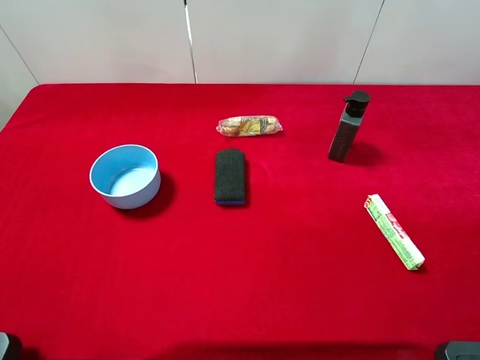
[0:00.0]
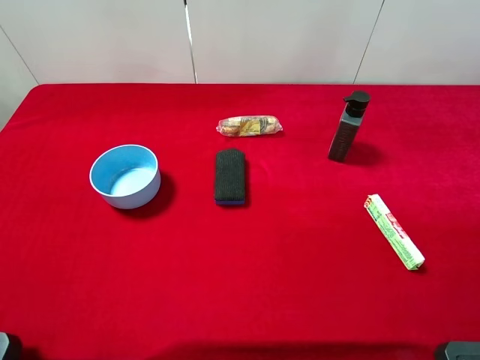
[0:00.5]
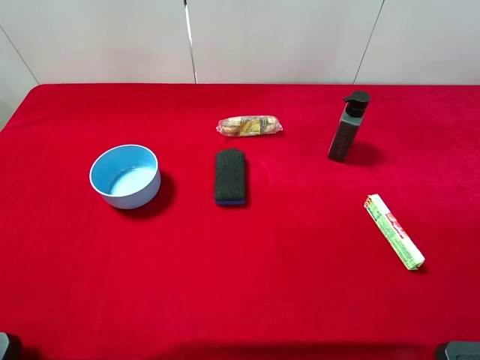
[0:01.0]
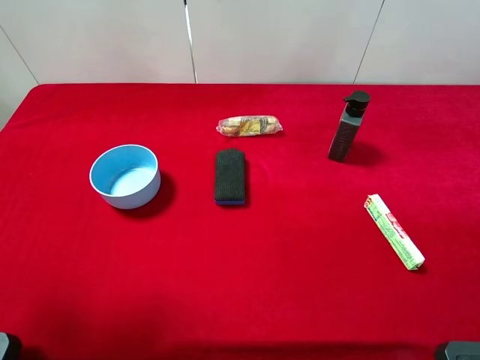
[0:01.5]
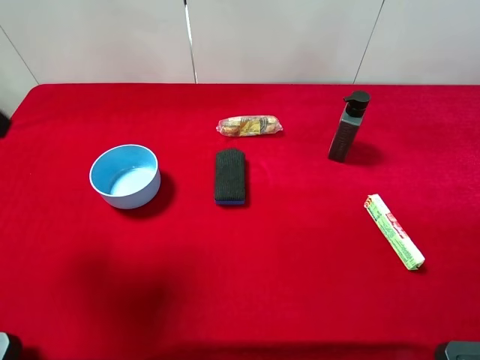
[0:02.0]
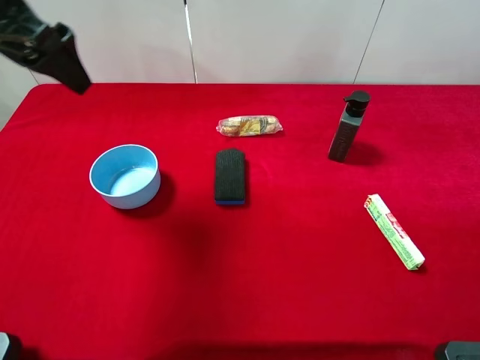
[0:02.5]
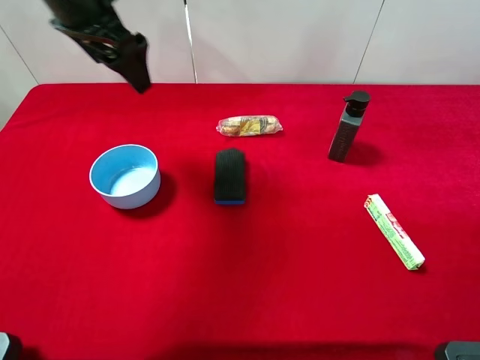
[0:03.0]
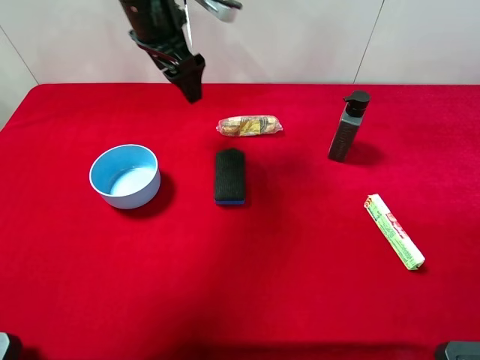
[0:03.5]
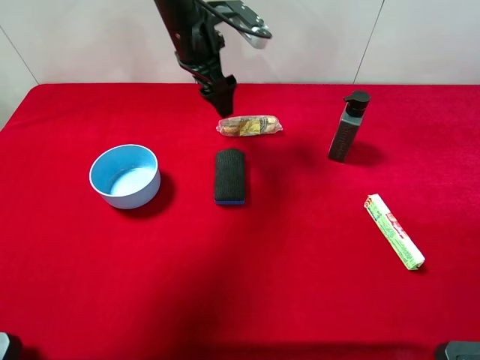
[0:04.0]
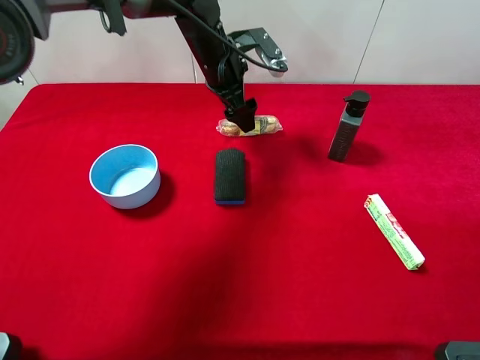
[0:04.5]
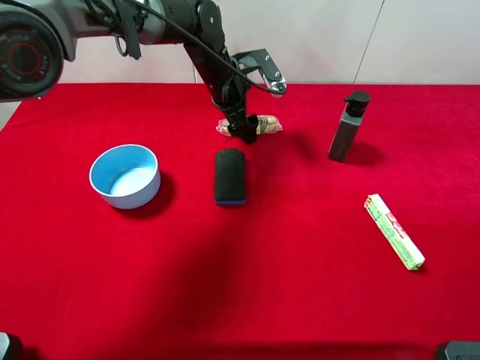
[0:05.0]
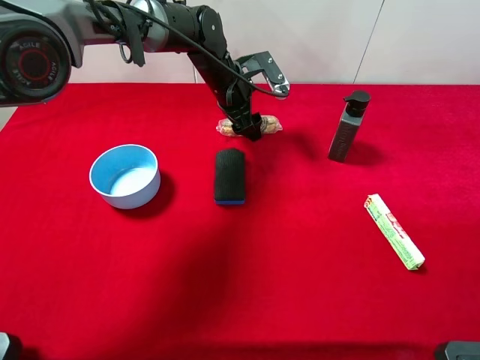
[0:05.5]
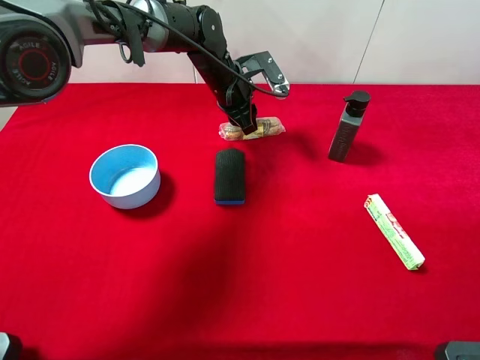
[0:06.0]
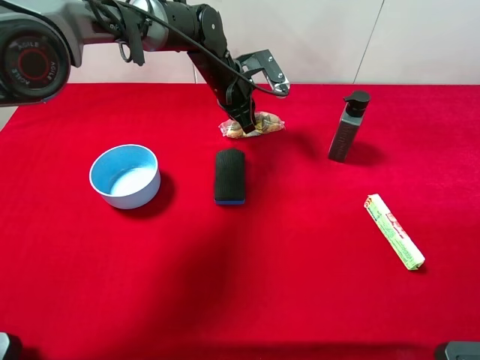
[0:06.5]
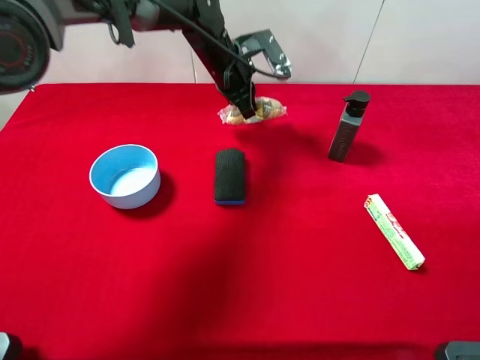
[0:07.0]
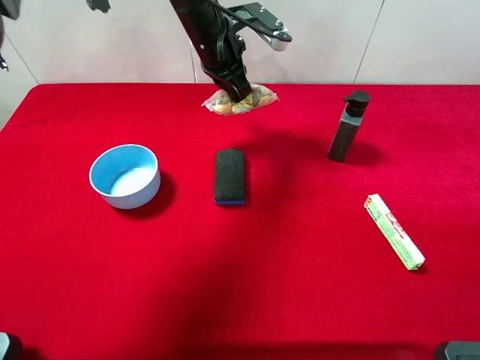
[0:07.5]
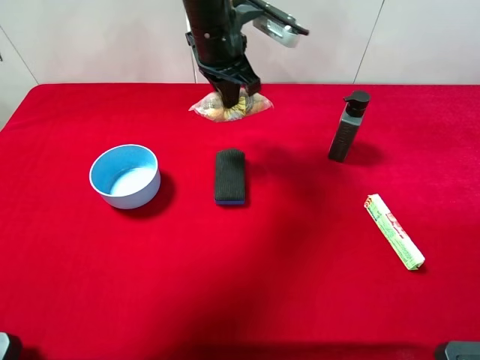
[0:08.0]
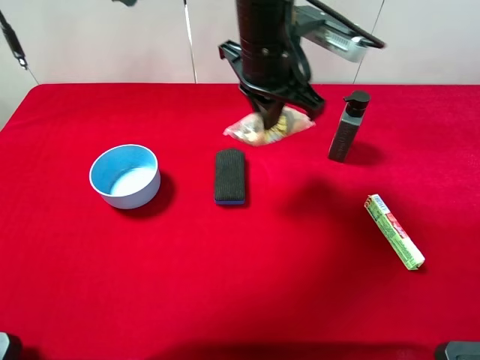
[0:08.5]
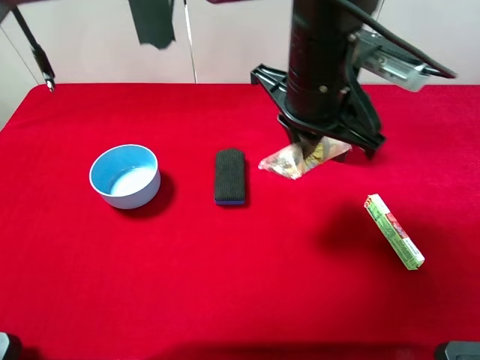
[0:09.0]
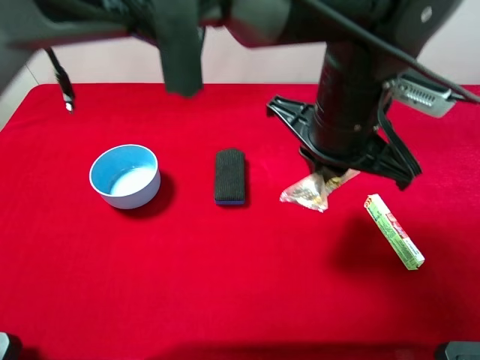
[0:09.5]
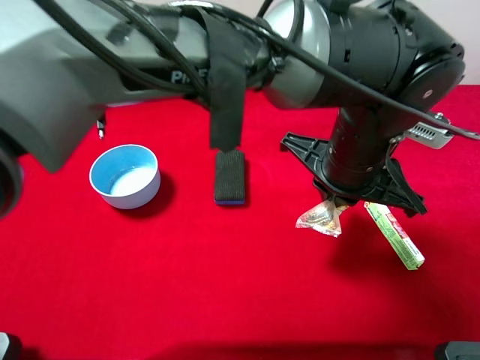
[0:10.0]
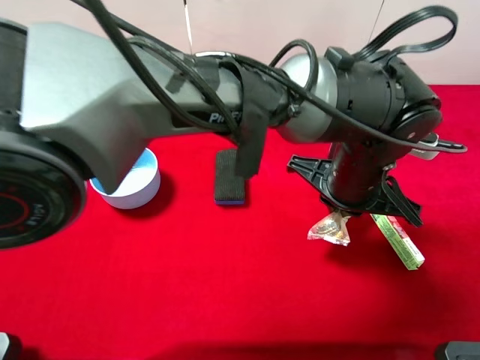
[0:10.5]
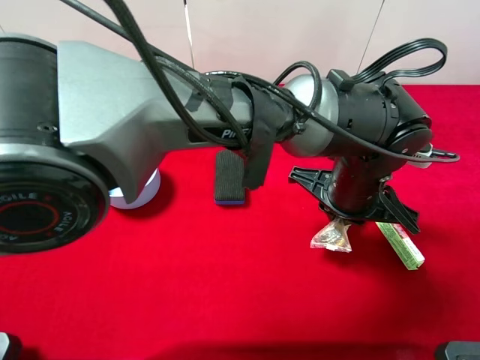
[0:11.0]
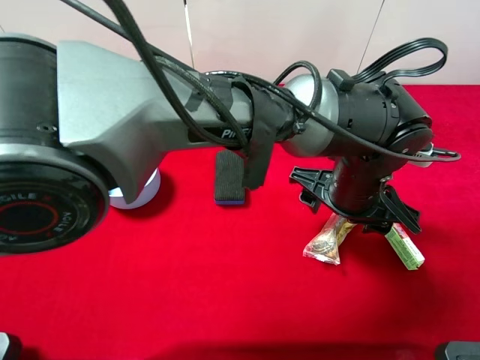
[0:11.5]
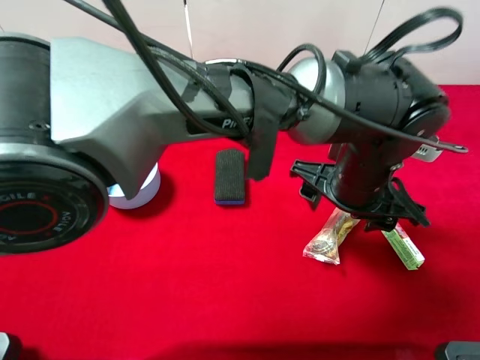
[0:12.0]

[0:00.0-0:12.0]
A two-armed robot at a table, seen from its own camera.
Task of the whole recording: the gripper move the object.
Step, 0:00.0 to 0:06.0: Grasp the chocolate with the left gripper.
0:00.0 to 0:02.0: The left gripper travels forward by about 20 cm.
0:02.0 to 0:04.0: The left gripper is displaced forward, to the right and downward by roughly 35 cm.
0:04.0 to 0:06.0: The left gripper heads downward, covering approximately 10 cm, and closes its fingers.
0:06.0 to 0:08.0: The left gripper goes approximately 15 cm upward and backward.
0:08.0 to 0:10.0: The left gripper travels backward and to the right by some 25 cm.
0:10.0 to 0:12.0: The left gripper opens its fingers.

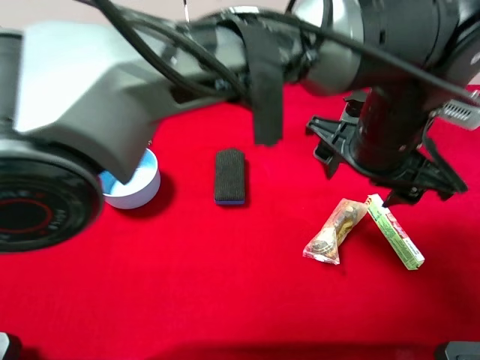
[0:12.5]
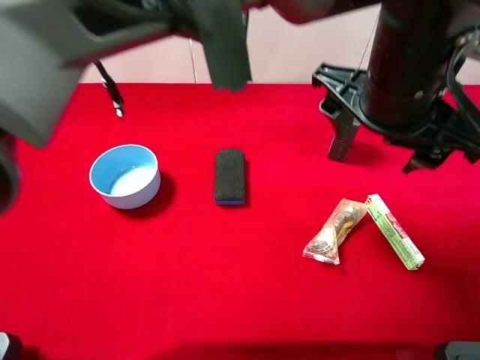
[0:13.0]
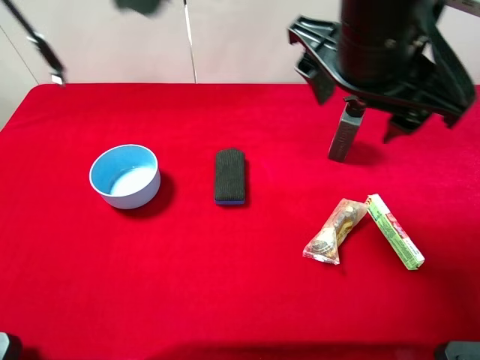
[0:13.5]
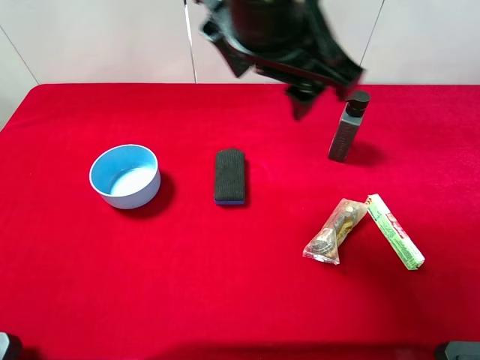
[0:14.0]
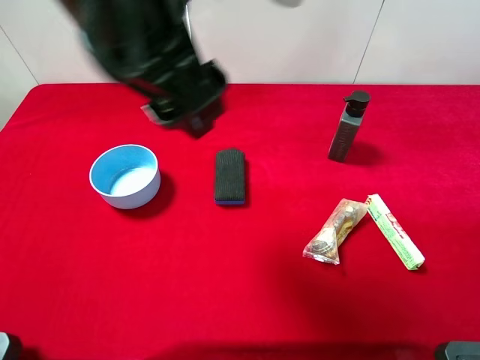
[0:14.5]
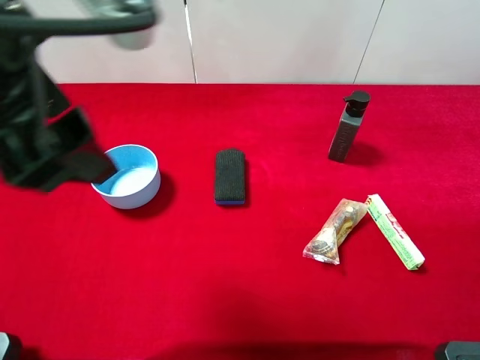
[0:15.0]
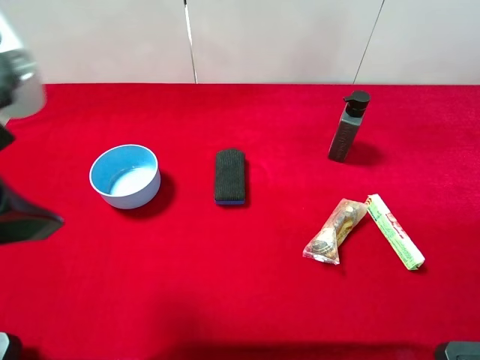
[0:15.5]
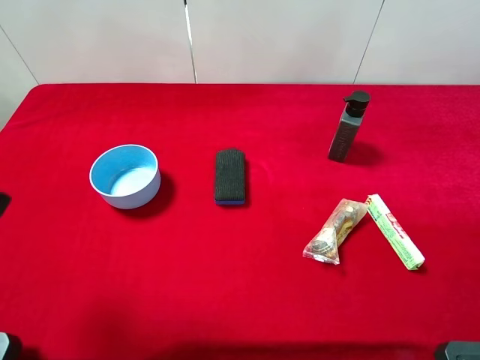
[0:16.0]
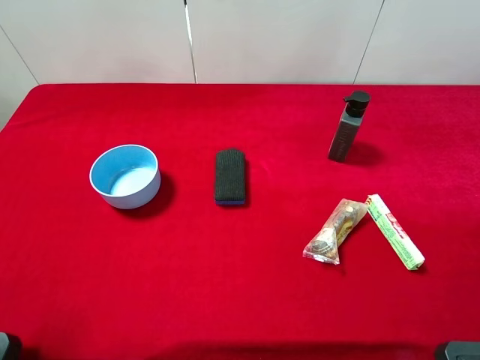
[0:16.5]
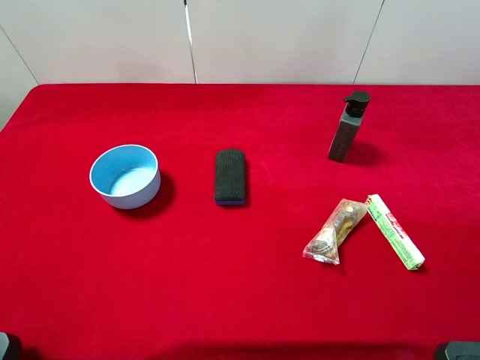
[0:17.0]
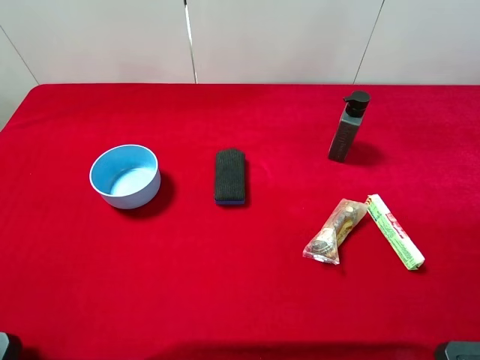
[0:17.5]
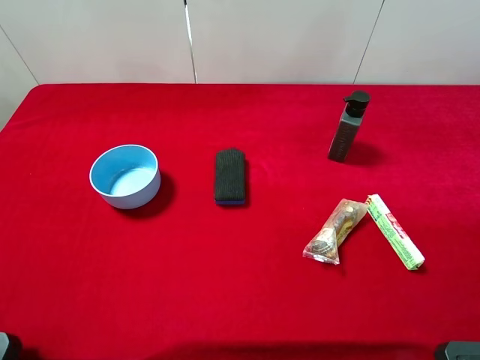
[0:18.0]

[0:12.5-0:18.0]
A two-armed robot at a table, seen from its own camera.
Task of the whole recording: the gripper move the object.
0:12.5 to 0:14.5: The left gripper moves to the left and upward, some 25 cm.
0:14.5 to 0:16.0: The left gripper is displaced to the left and backward by approximately 20 cm.
